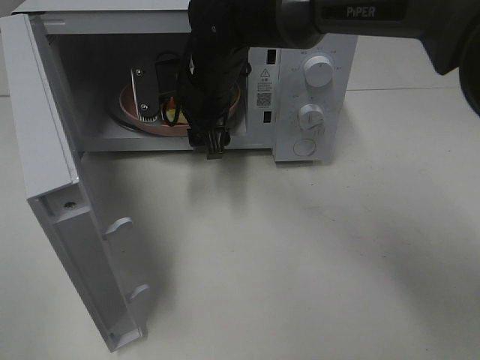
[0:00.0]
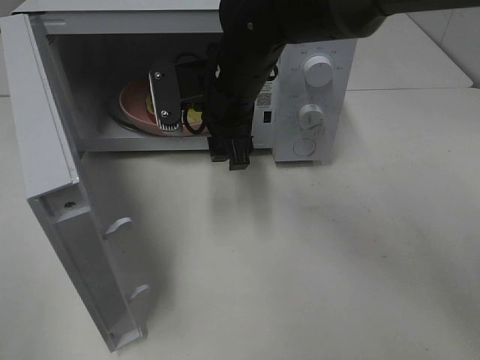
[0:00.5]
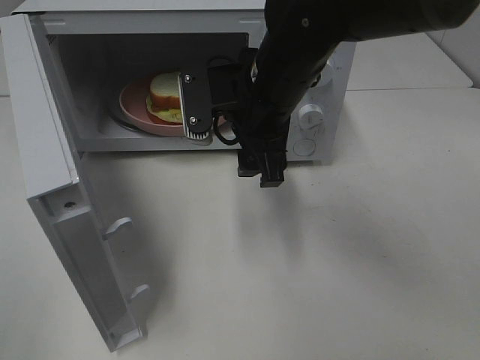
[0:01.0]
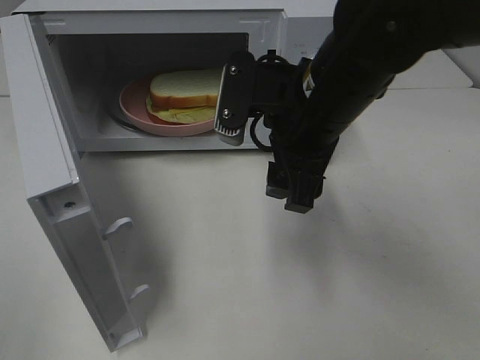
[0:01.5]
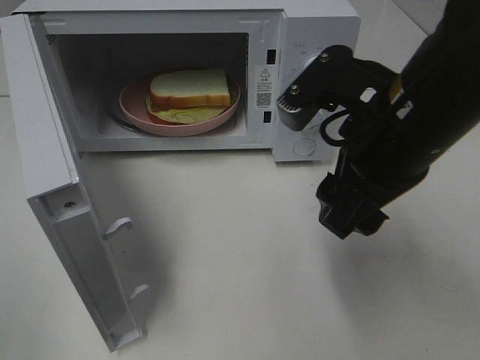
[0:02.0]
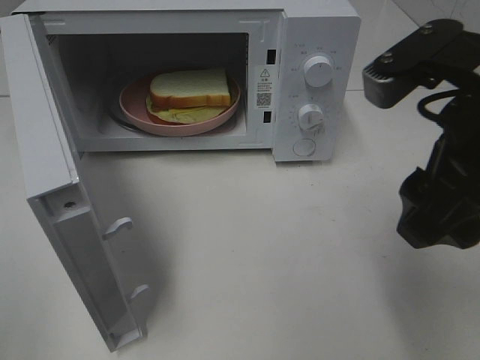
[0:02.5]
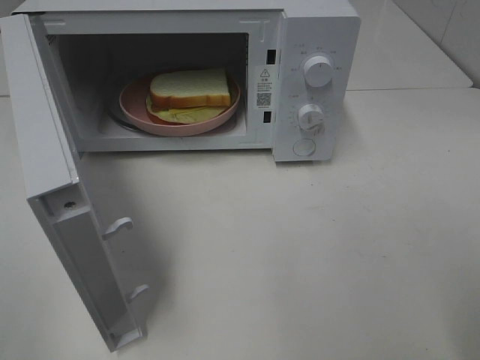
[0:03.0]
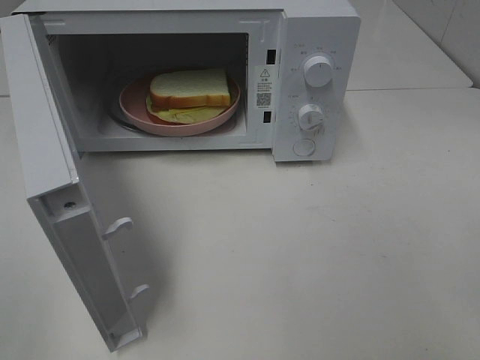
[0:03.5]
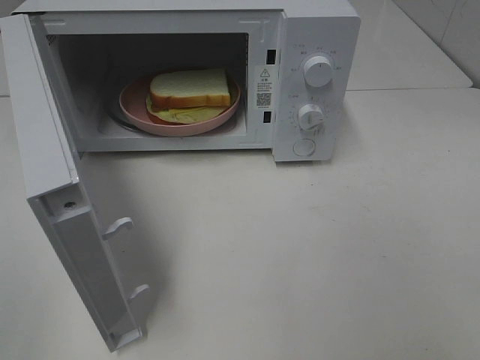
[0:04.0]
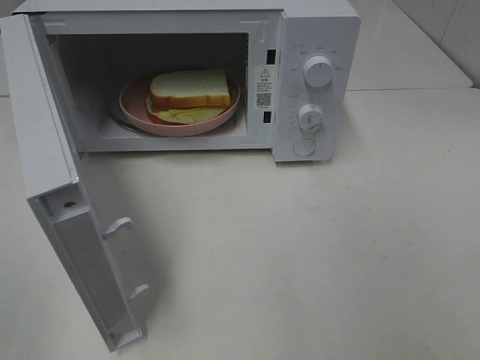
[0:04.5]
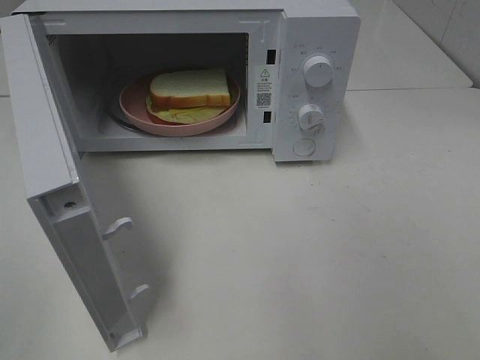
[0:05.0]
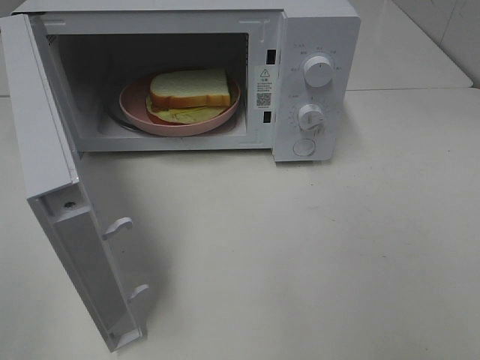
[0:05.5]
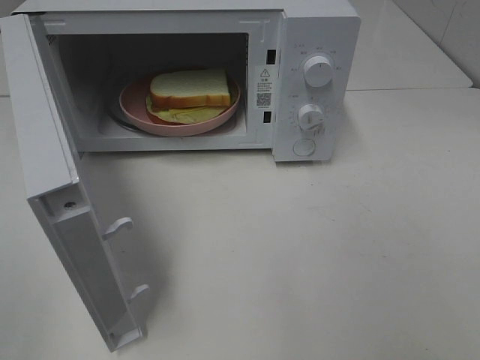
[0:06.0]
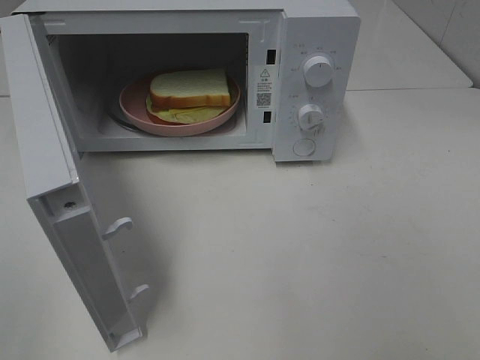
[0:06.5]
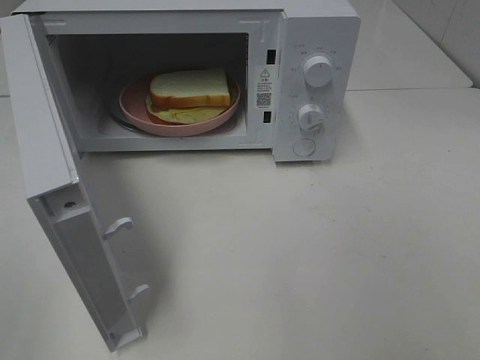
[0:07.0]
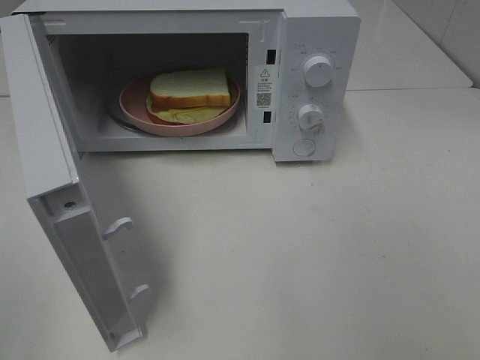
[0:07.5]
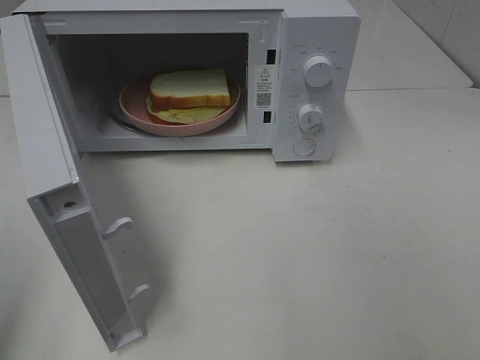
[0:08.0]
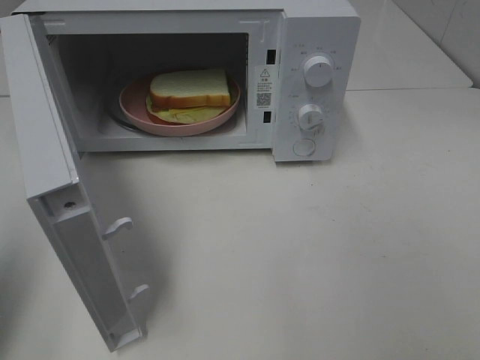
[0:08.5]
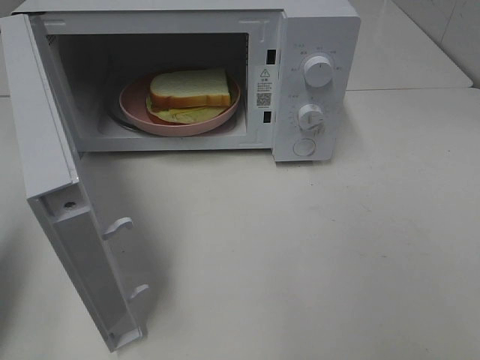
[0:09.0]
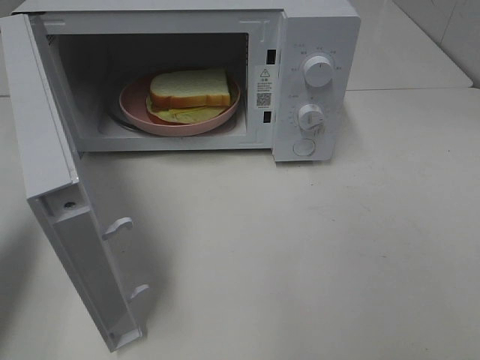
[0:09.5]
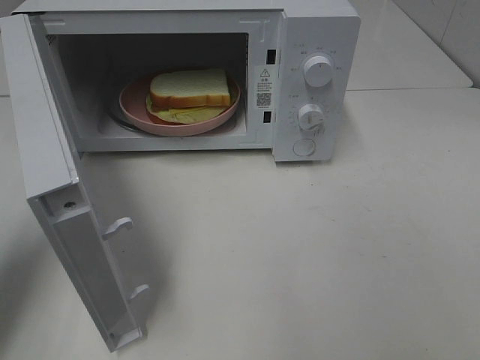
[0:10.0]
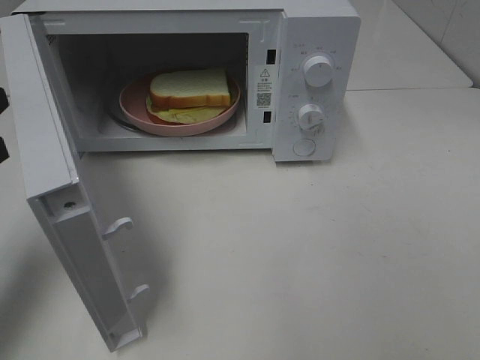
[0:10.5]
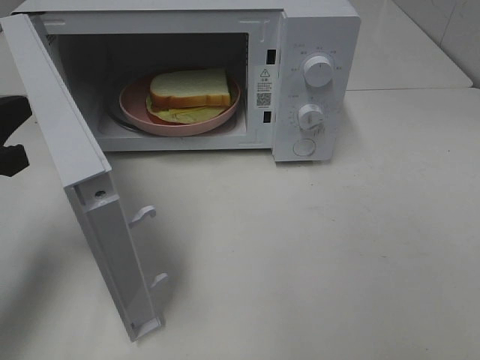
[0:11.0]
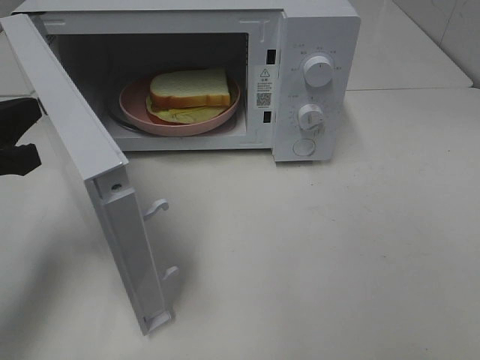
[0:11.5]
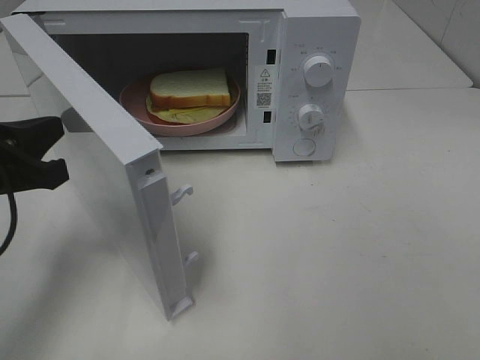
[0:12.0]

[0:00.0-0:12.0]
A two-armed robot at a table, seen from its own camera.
Task of the whole recording: Heat Sandwich.
0:00.0 to 0:02.0: The right gripper moves backward and to the right, about 25 cm.
0:02.0 to 0:04.0: The right gripper shifts approximately 25 cm backward and to the right.
0:08.0 to 0:10.0: The left gripper travels forward and downward by approximately 15 cm, and closes its fingers.
0:10.0 to 0:12.0: The left gripper is displaced to the right by approximately 5 cm.

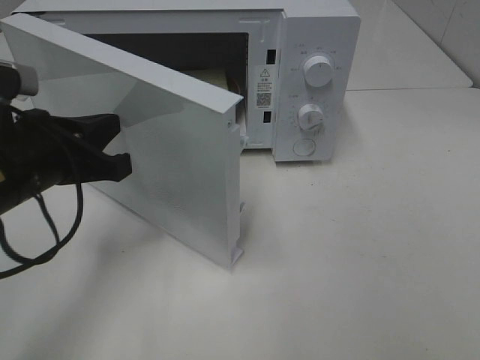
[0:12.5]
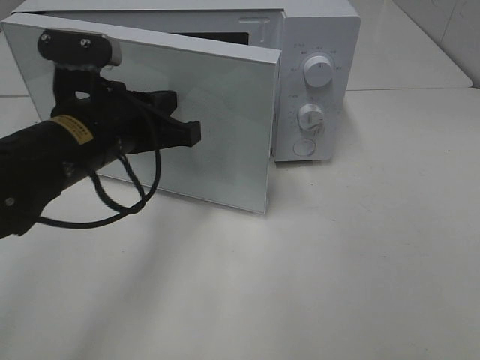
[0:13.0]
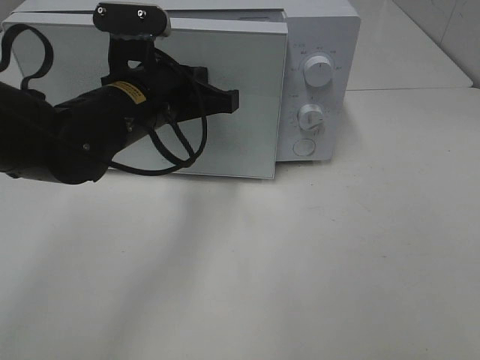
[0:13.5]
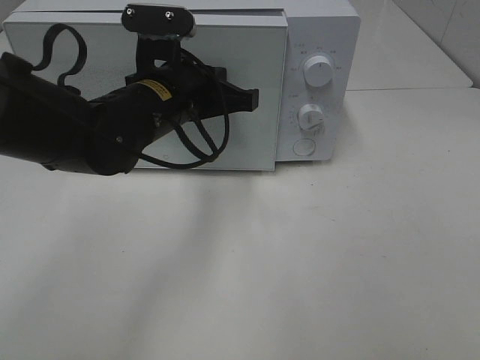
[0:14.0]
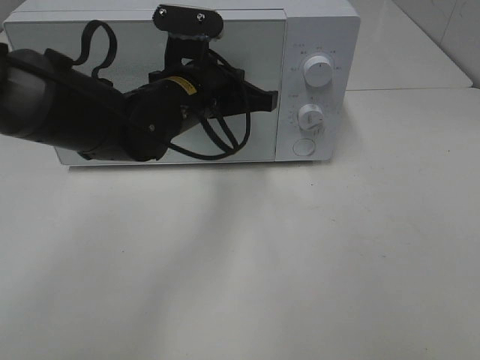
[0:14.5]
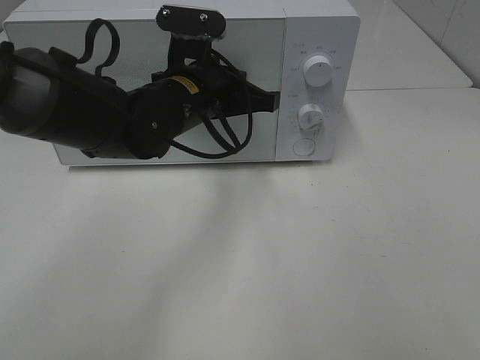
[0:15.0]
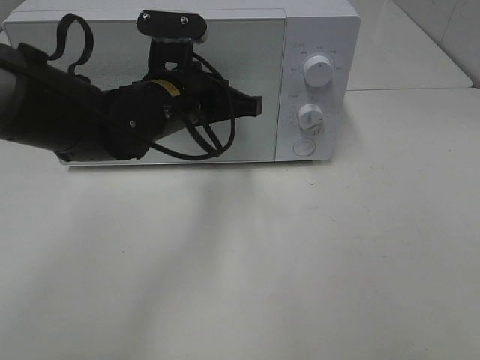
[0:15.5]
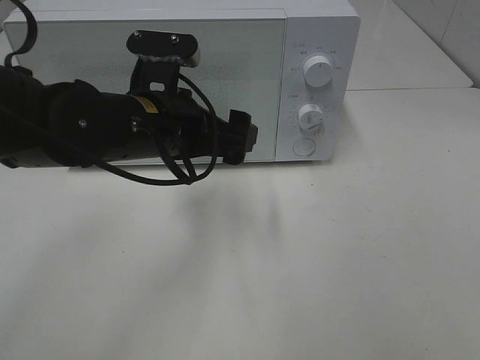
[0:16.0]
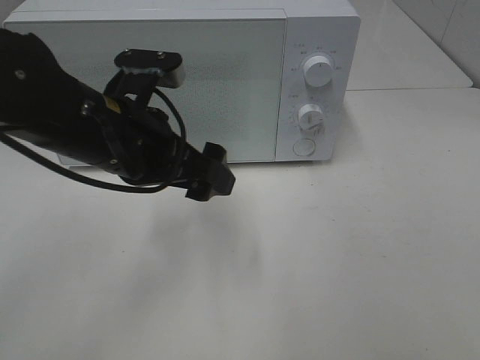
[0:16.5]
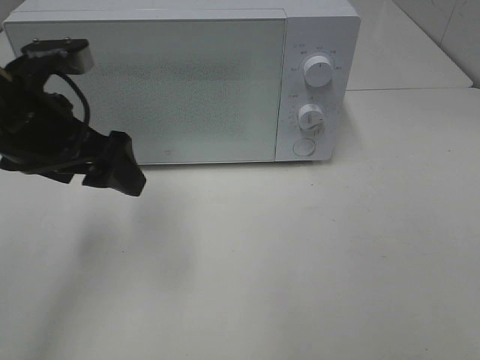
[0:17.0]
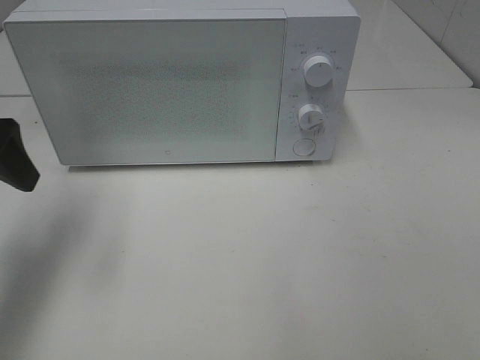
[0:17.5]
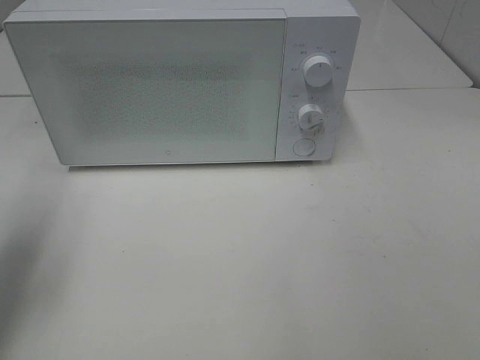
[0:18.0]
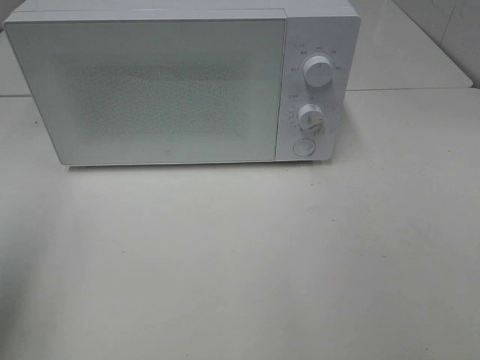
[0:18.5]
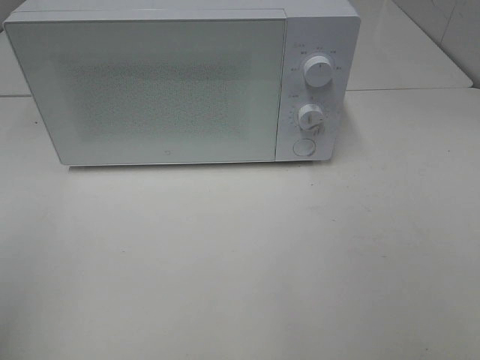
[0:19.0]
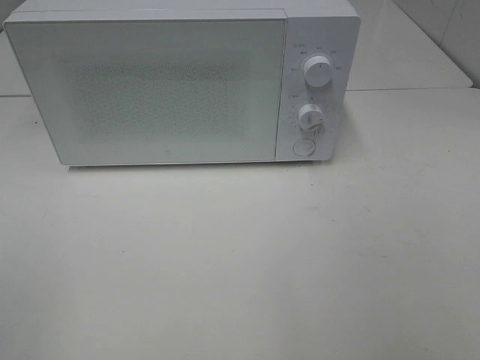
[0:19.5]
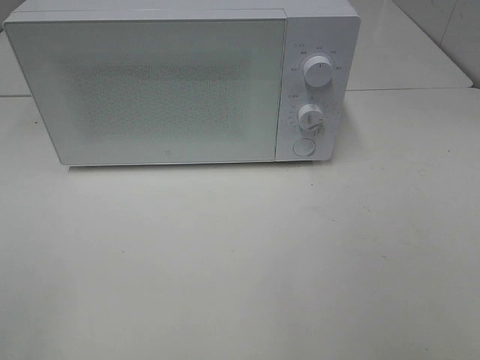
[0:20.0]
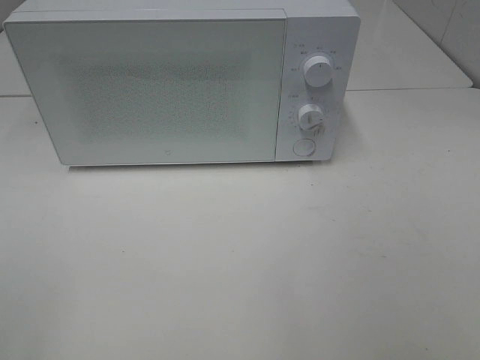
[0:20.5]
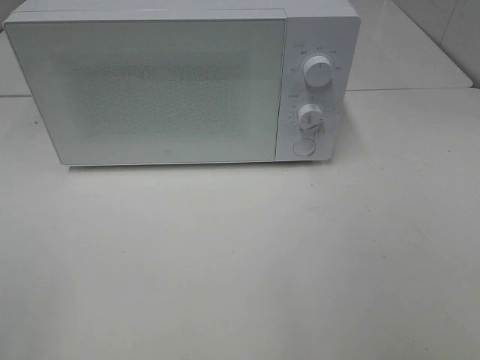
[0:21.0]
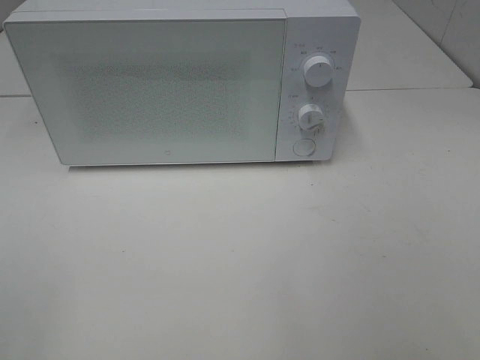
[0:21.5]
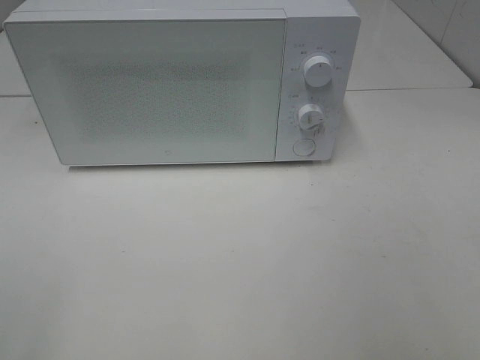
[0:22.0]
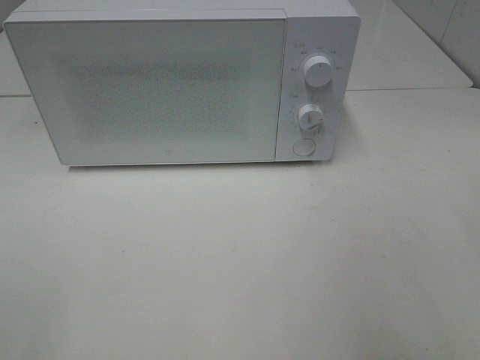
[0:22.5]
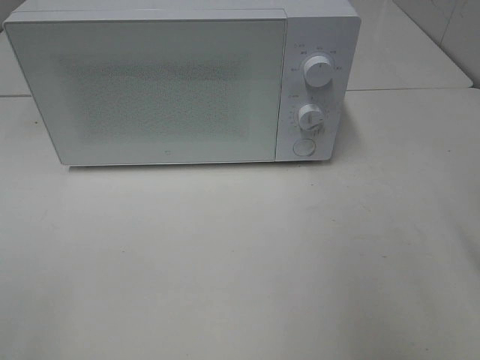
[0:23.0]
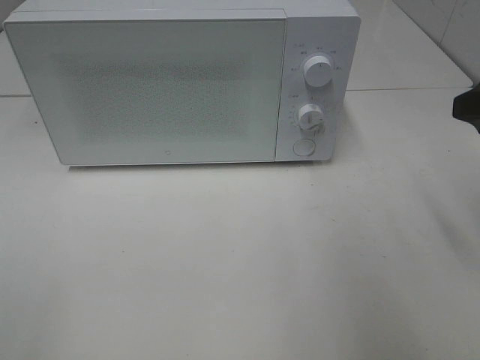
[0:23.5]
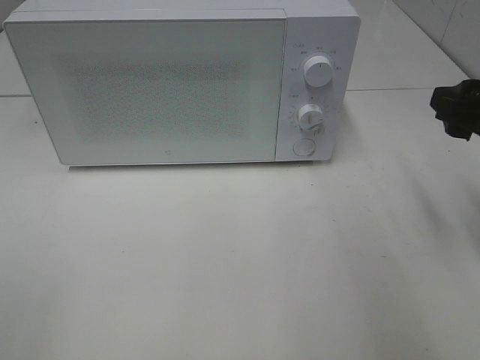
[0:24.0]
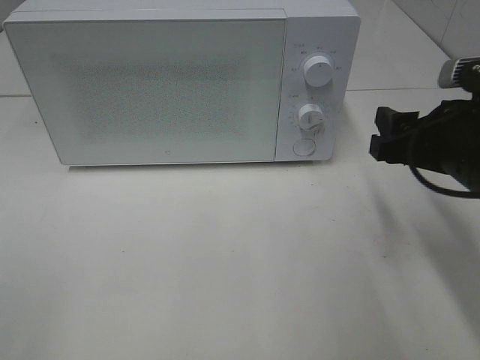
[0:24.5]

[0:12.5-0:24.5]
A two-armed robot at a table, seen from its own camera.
Task of the whole recording: Heat Sandwich.
Step, 0:12.5 to 0:15.0: Left hand: close the microwave door.
0:12.5 to 0:14.5: The left gripper travels to the right and forward by roughly 20 cm.
0:14.5 to 0:16.5: The left gripper goes roughly 10 cm backward and to the left, and opens its fingers.
0:16.5 to 0:18.5: The left gripper moves to the left and backward, roughly 25 cm.
0:18.5 to 0:20.5: The left gripper is displaced backward by about 15 cm.
0:22.5 to 0:24.5: The right gripper shifts roughly 20 cm forward, downward and to the left.

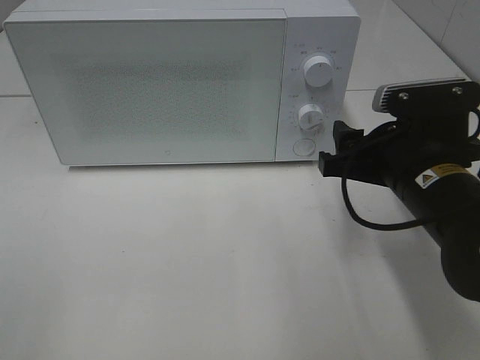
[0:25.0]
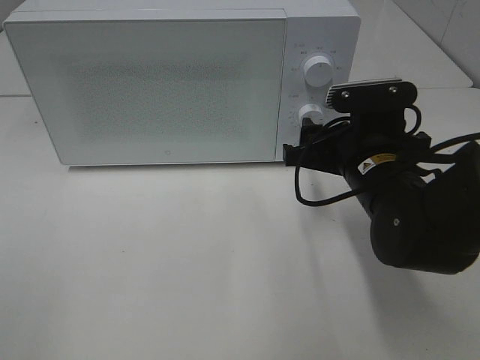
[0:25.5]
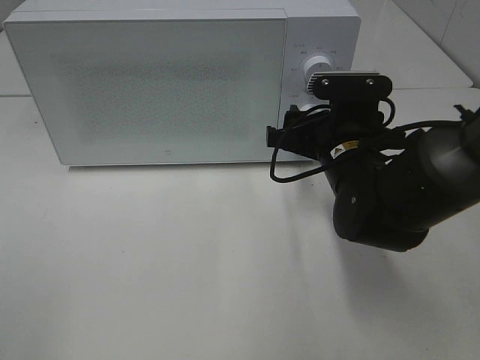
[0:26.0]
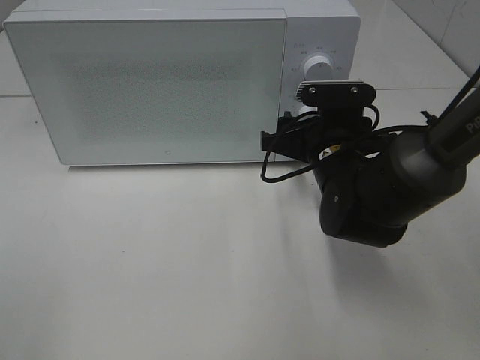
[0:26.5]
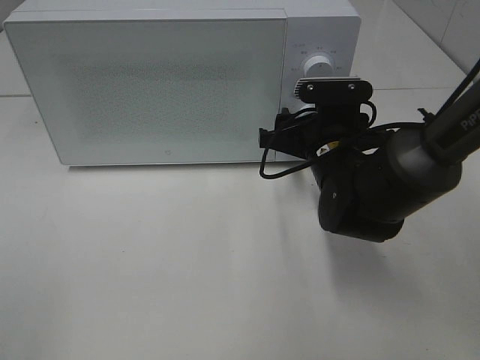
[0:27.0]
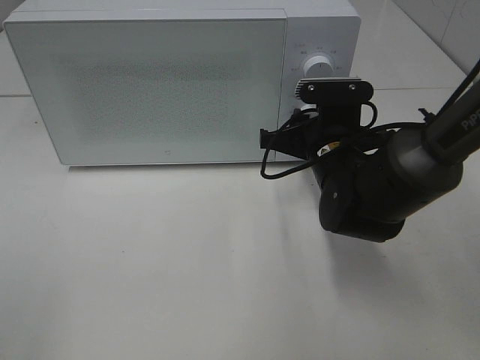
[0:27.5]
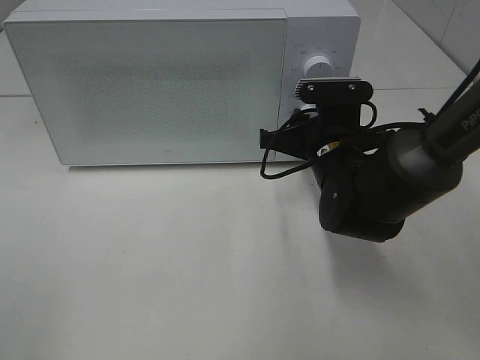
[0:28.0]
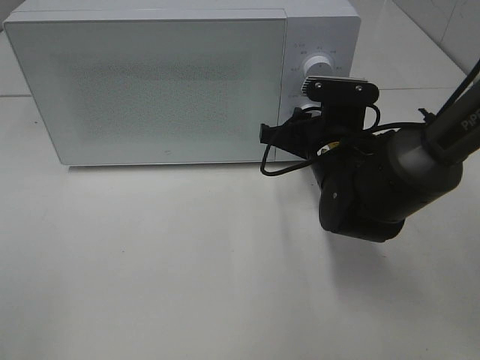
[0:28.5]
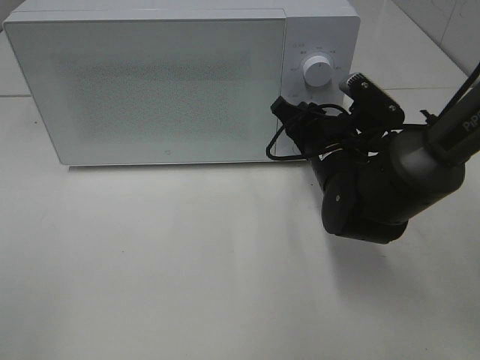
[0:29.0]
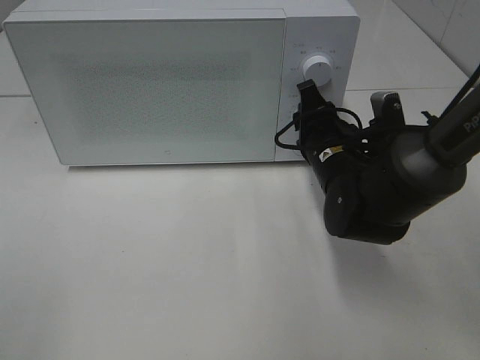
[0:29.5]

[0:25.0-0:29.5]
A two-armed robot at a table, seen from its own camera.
Task of the whole recording: Heat Sandwich.
0:25.0 to 0:27.0: The right gripper heads forward and to the left, covering some 10 cm.
